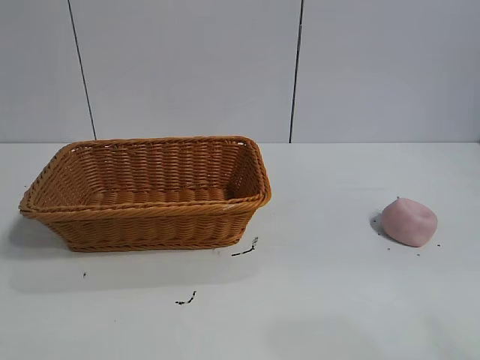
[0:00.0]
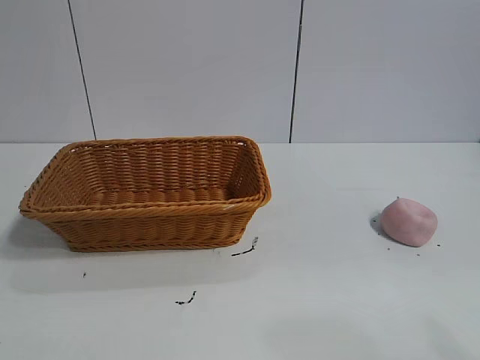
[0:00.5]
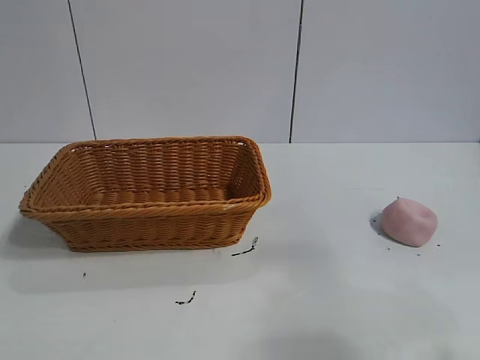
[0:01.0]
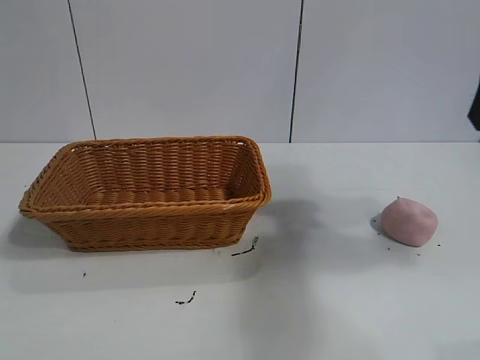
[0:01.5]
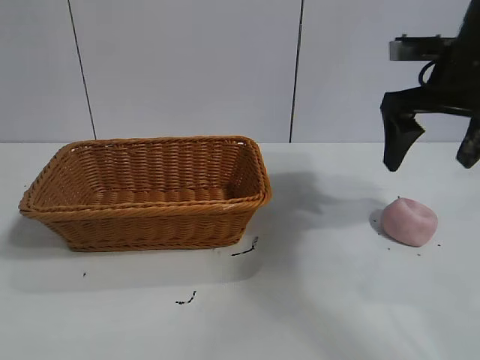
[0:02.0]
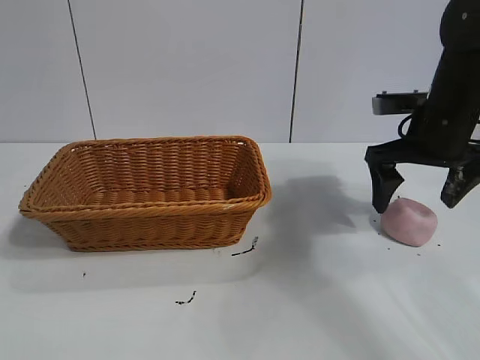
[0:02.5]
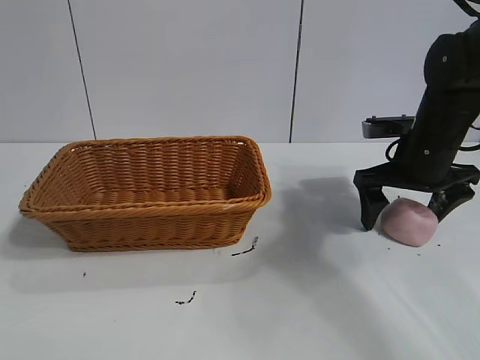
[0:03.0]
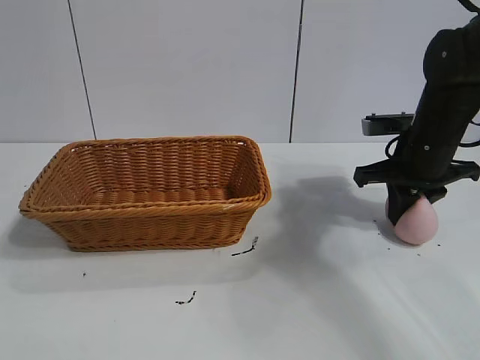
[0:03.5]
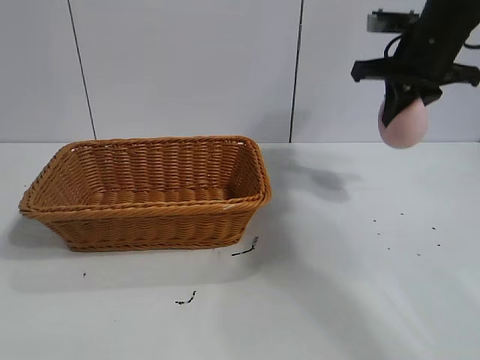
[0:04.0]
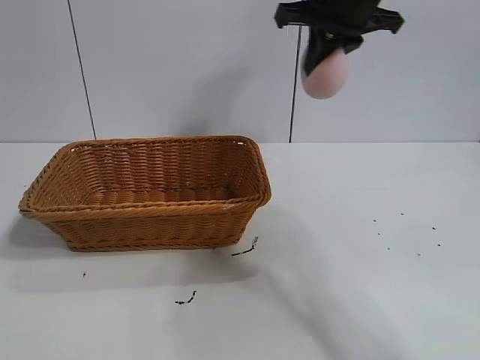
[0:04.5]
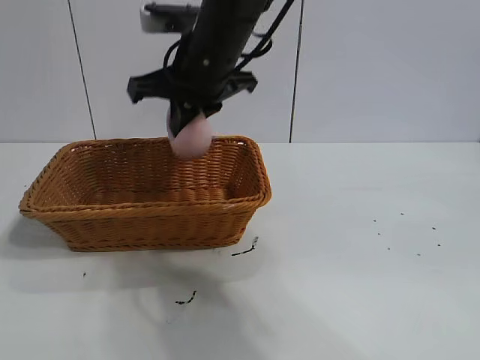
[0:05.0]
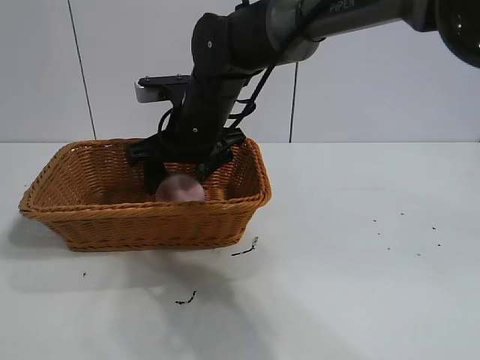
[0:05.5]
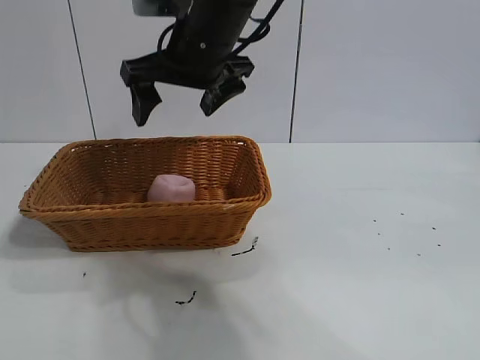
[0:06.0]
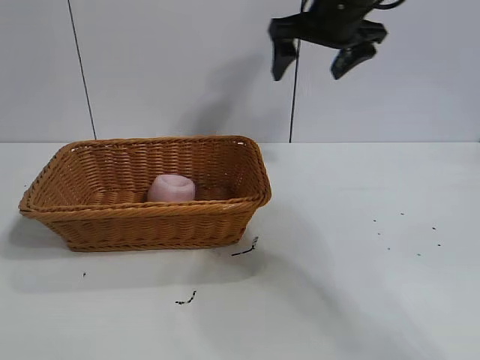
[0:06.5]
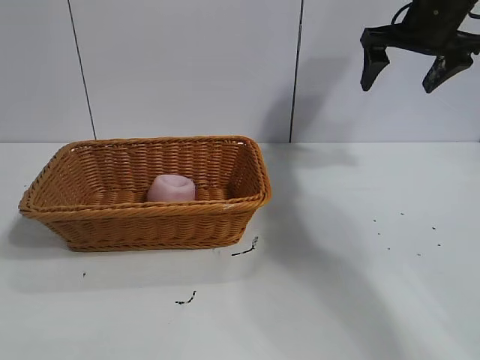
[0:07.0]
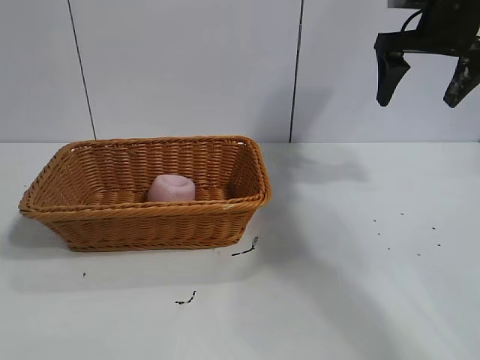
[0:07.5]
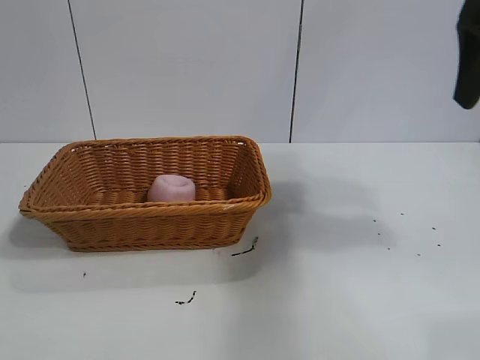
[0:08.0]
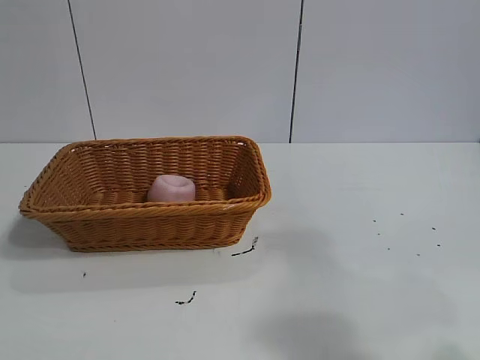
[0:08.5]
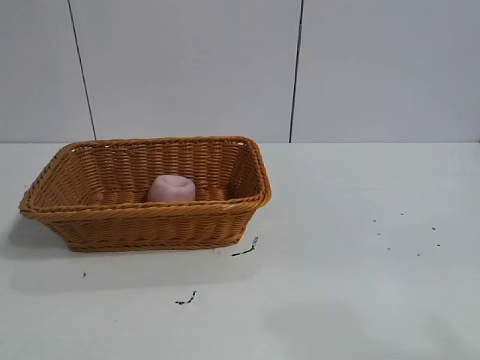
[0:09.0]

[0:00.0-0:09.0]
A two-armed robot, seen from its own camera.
Task of the whole recording: pick up the peach and put it into the basket.
Step, 0:01.0 to 0:03.5: Grasp the peach with right gripper.
Step, 0:04.0 to 0:05.5: Place the peach in the basket with right gripper.

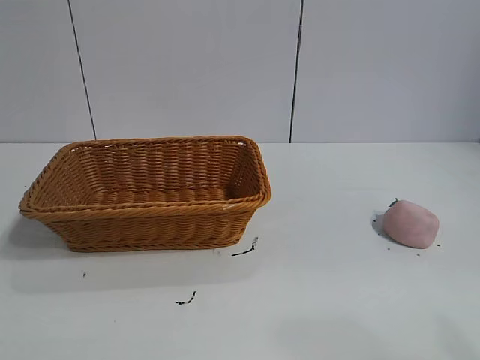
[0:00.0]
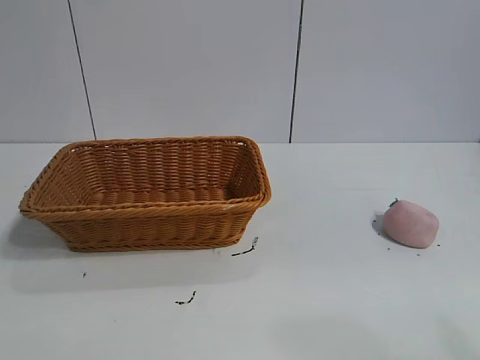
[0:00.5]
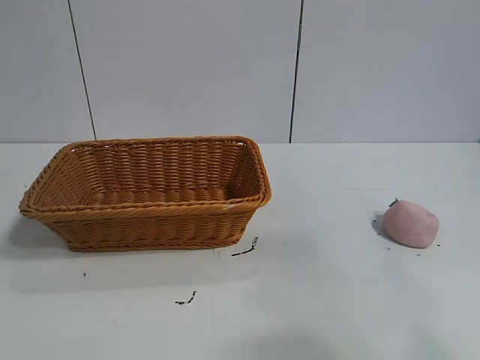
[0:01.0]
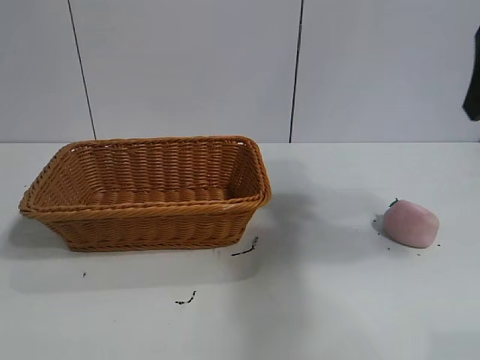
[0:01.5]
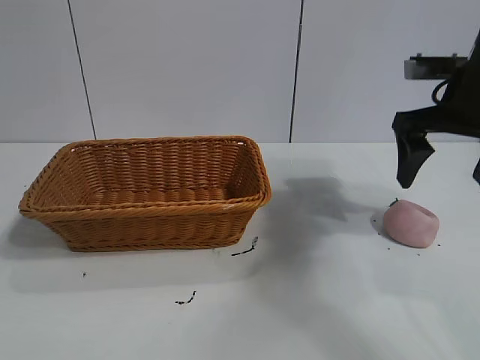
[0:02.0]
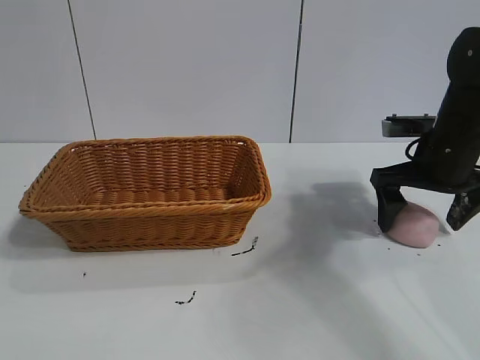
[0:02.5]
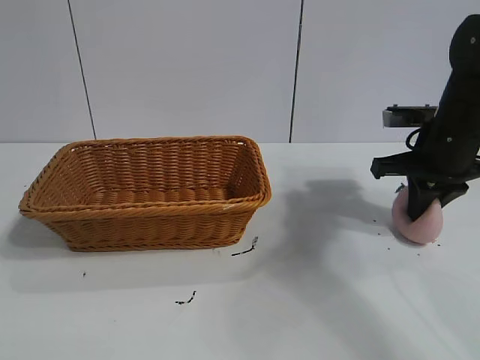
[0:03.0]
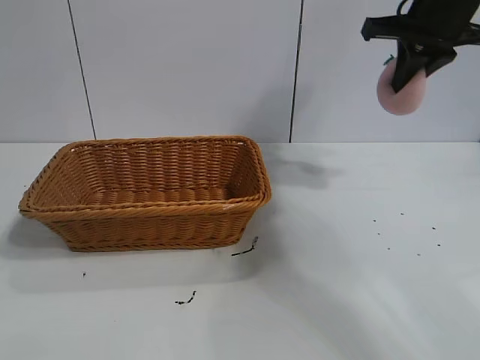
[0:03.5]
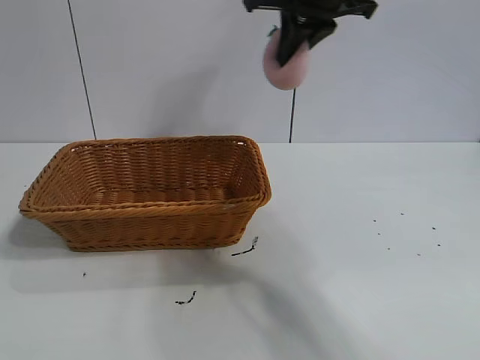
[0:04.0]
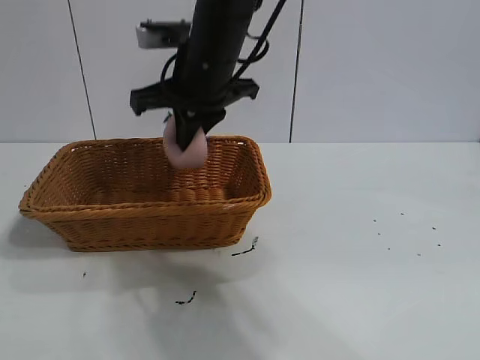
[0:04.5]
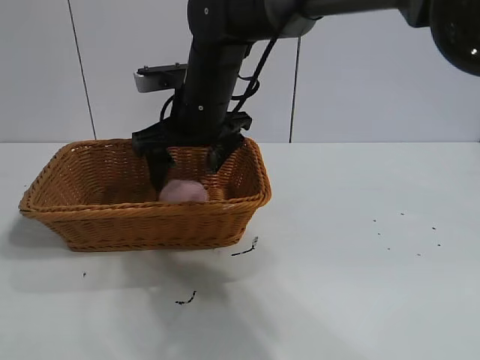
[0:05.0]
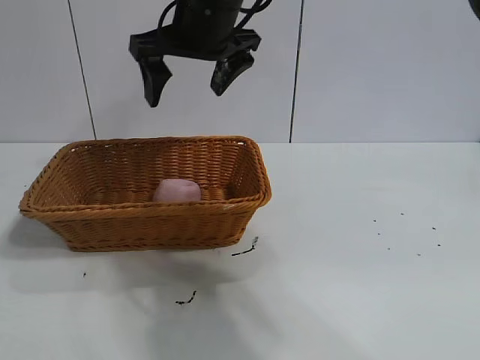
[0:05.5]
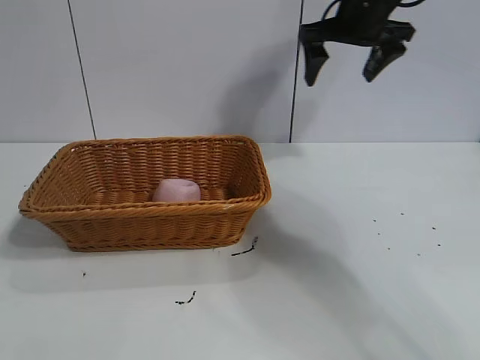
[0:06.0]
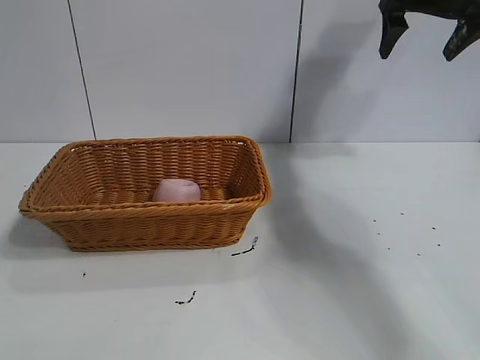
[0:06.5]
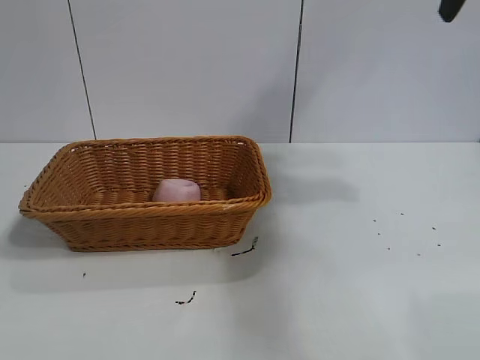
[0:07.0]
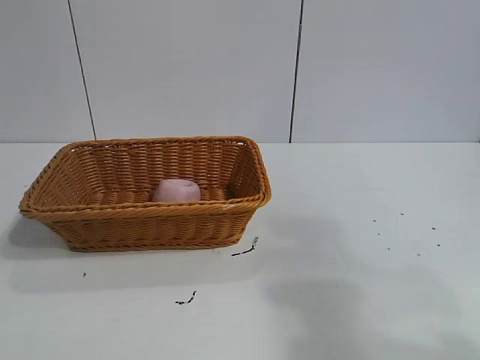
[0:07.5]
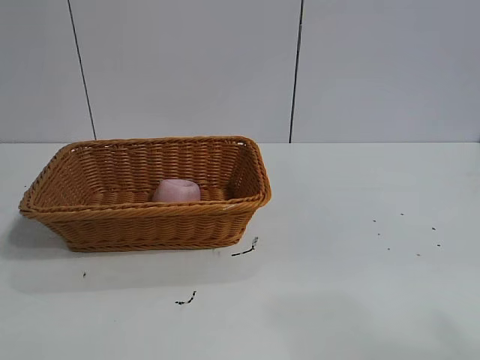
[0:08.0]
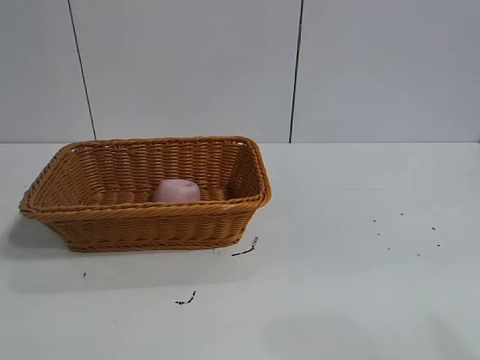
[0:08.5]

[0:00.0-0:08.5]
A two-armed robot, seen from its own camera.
Task of the whole recording: pick up the peach and put it into the basket.
Step, 0:01.0 to 0:02.5: Grasp the peach with right gripper.
Step, 0:03.0 to 0:05.0: Place the peach in the basket with right gripper.

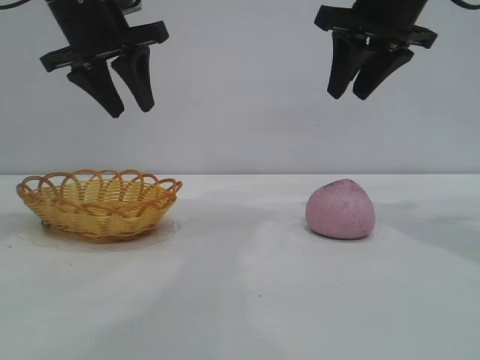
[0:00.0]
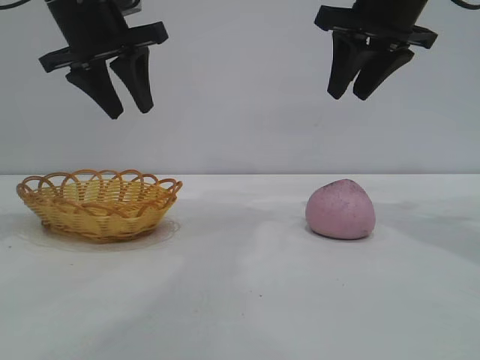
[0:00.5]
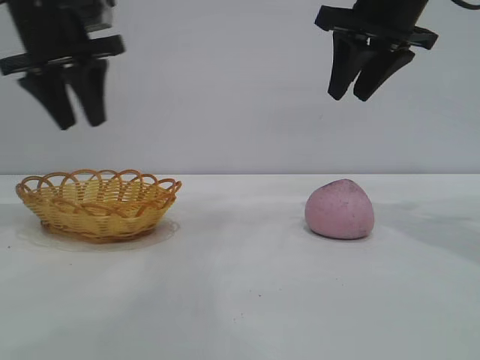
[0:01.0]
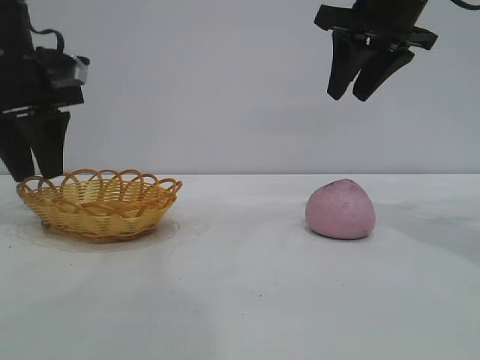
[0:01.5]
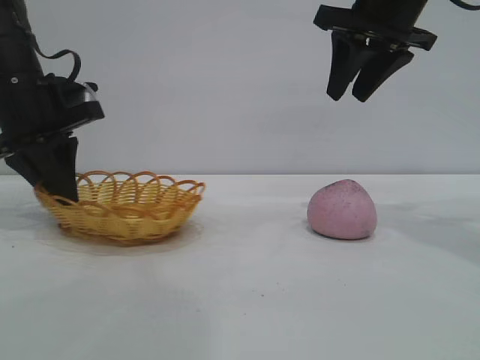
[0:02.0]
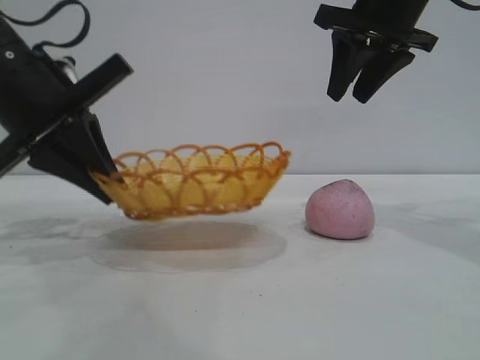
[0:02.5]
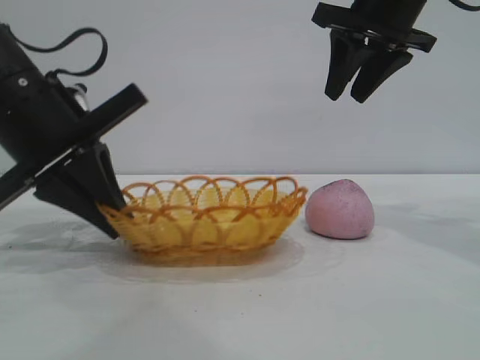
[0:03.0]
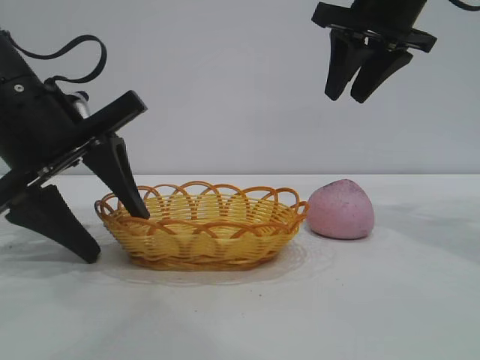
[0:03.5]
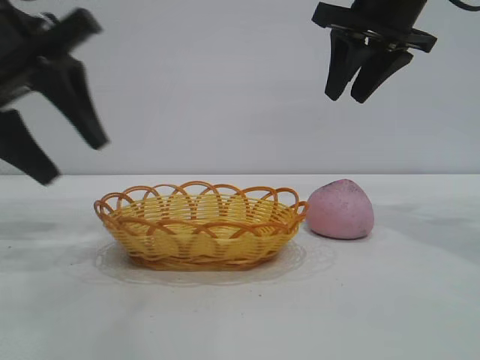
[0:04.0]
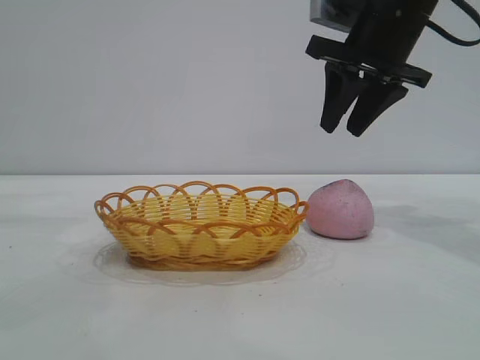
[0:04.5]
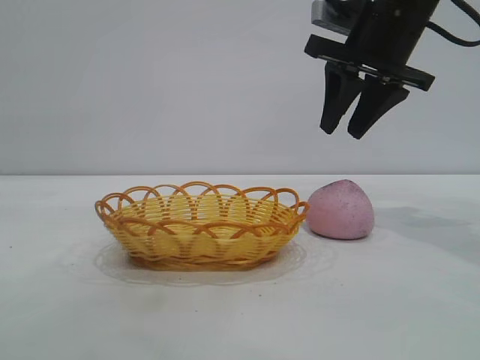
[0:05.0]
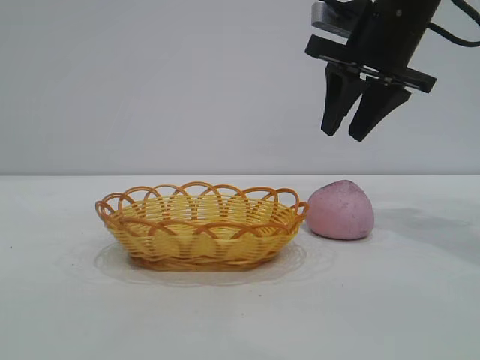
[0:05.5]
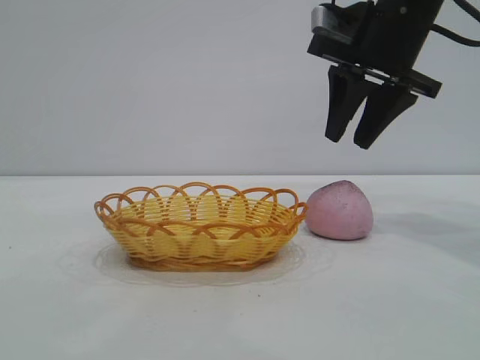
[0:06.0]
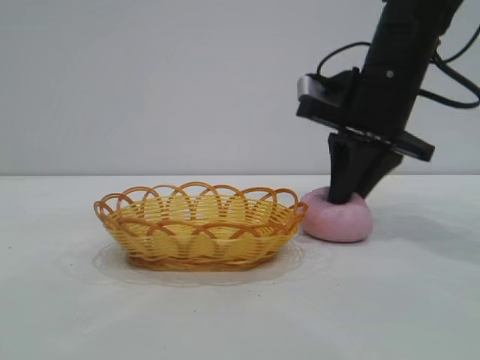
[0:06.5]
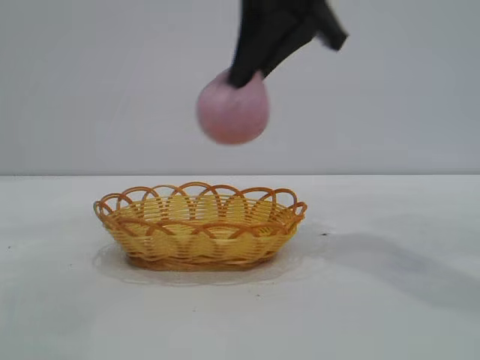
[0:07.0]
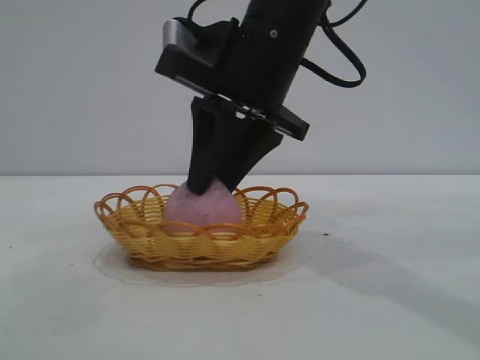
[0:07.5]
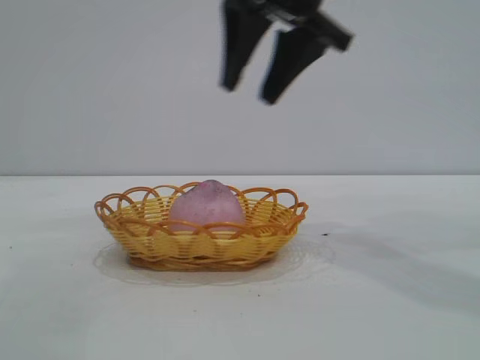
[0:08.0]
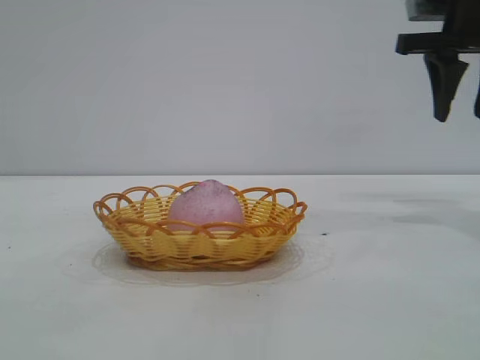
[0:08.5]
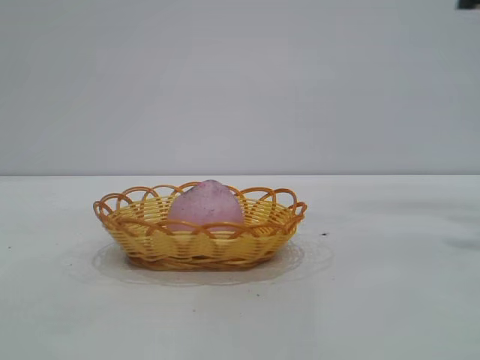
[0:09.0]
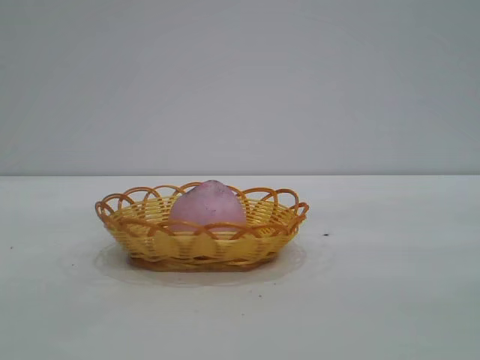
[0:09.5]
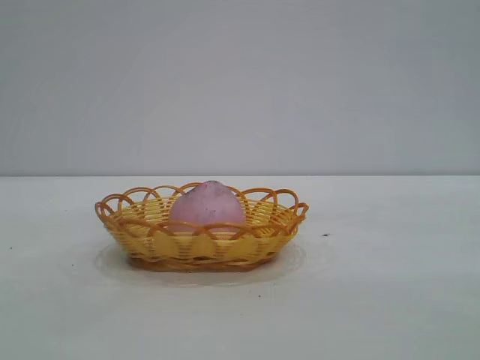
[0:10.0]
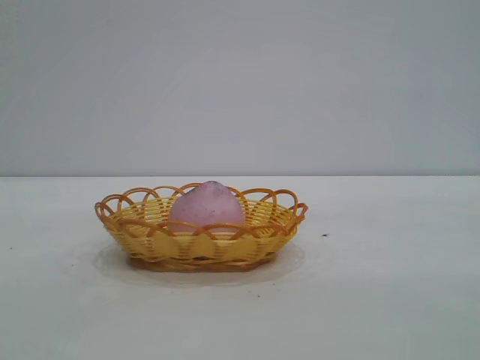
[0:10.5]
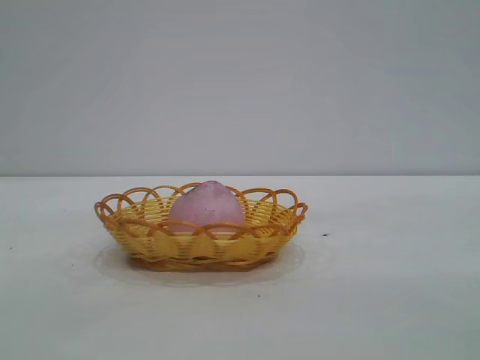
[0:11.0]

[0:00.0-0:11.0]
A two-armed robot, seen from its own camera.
Task of the whole recording: pick up the peach and put it into the basket.
Step, 0:00.0 to 0:03.5: Move the basket to the center of view.
Step, 0:04.0 to 0:06.5: Pick up the peach.
Step, 0:07.0 to 0:07.5: place the peach into the basket.
